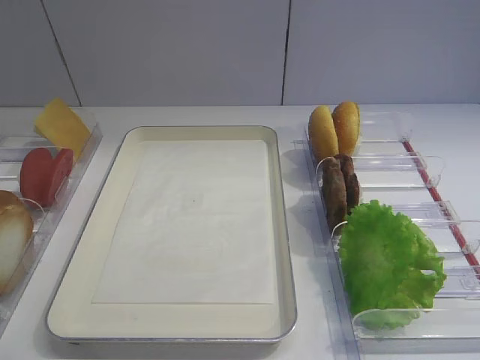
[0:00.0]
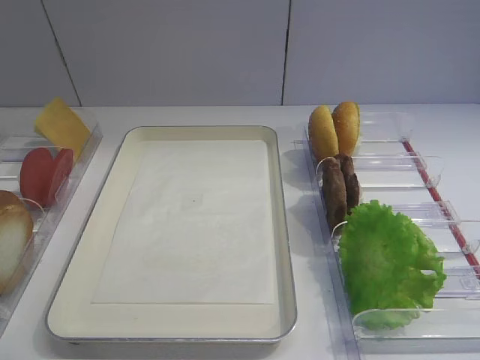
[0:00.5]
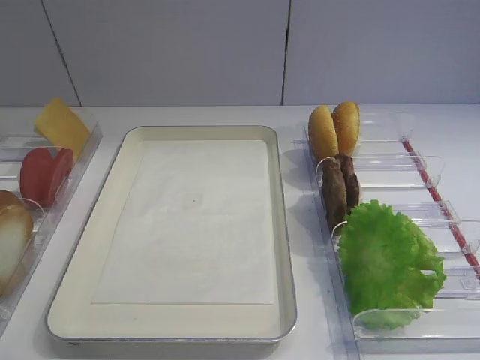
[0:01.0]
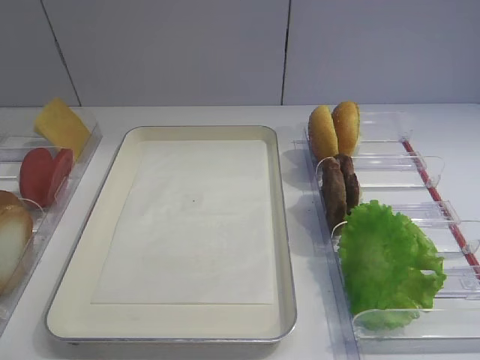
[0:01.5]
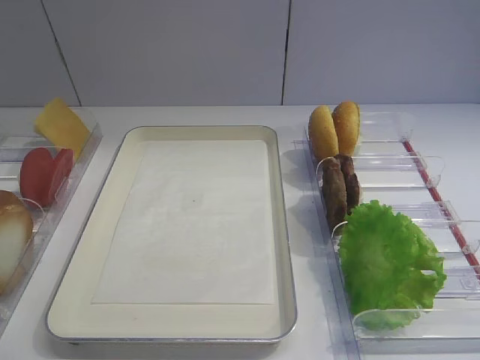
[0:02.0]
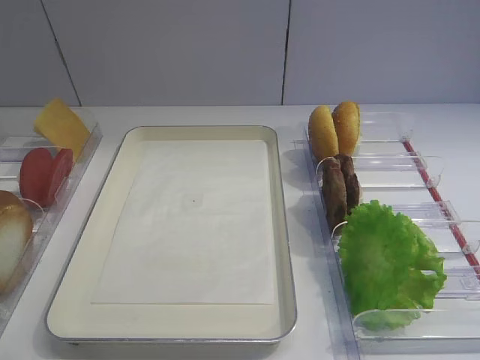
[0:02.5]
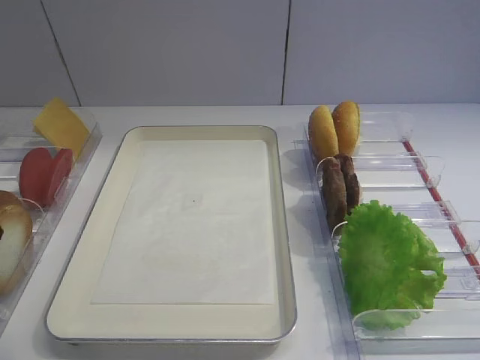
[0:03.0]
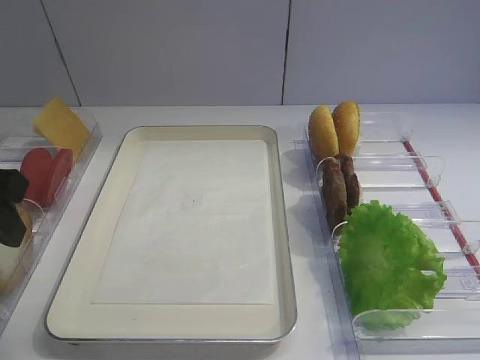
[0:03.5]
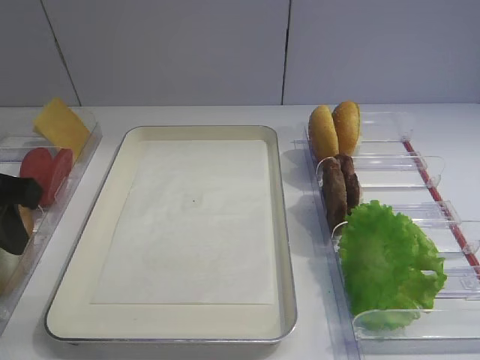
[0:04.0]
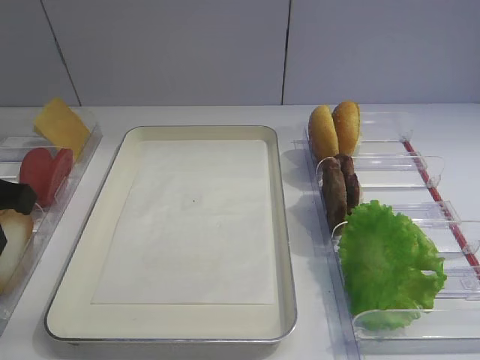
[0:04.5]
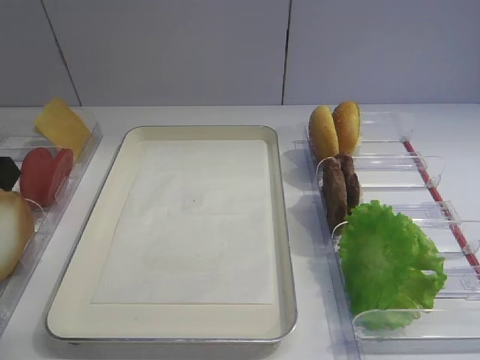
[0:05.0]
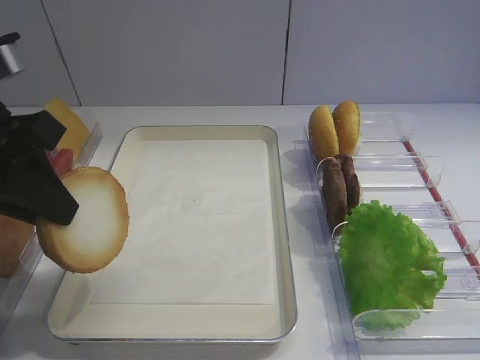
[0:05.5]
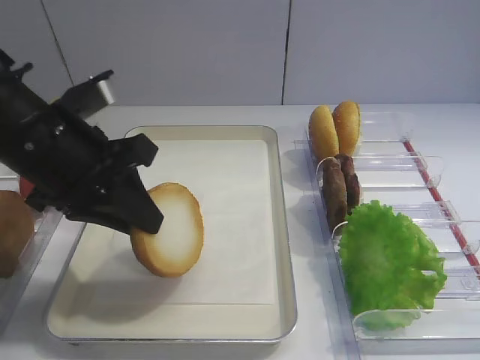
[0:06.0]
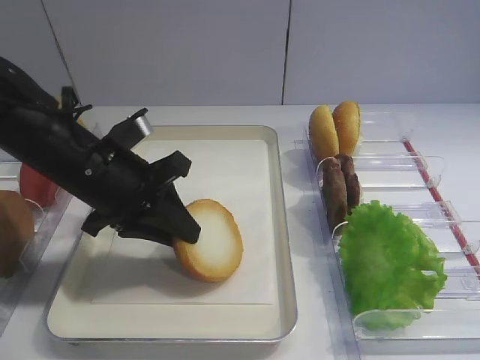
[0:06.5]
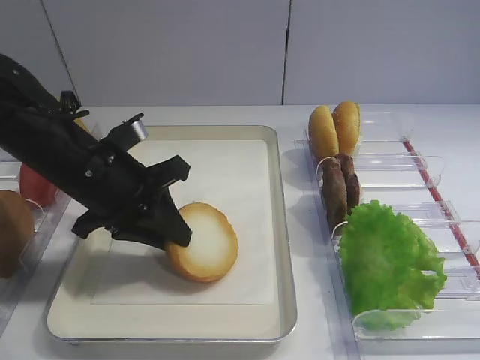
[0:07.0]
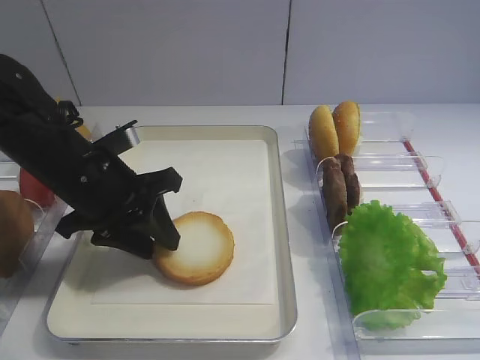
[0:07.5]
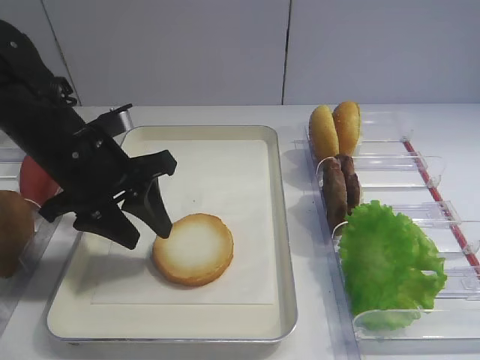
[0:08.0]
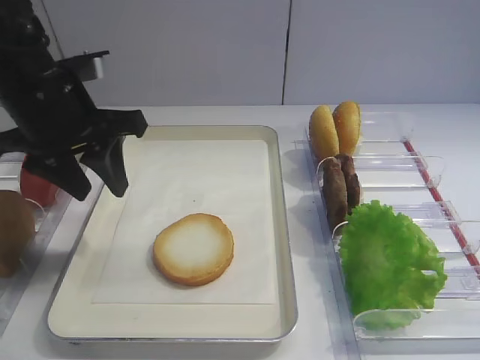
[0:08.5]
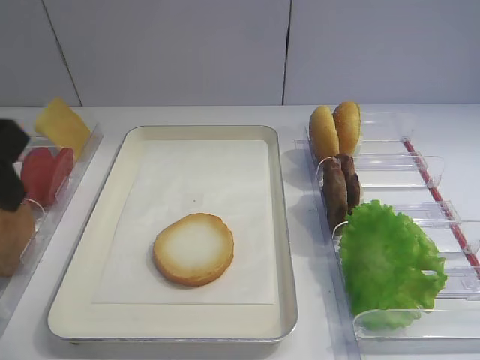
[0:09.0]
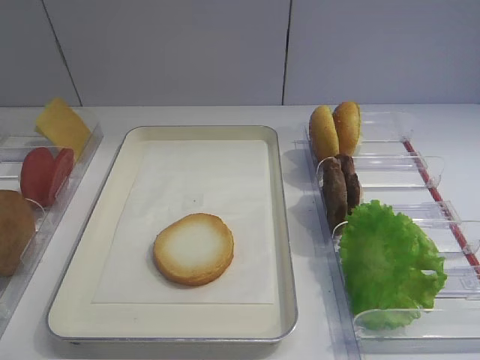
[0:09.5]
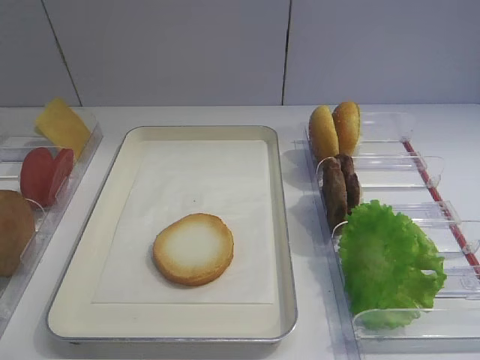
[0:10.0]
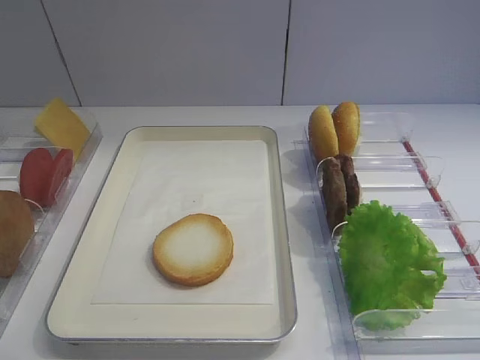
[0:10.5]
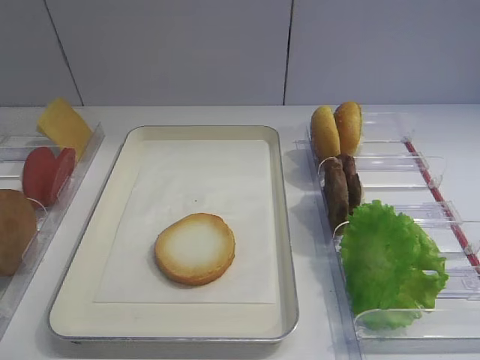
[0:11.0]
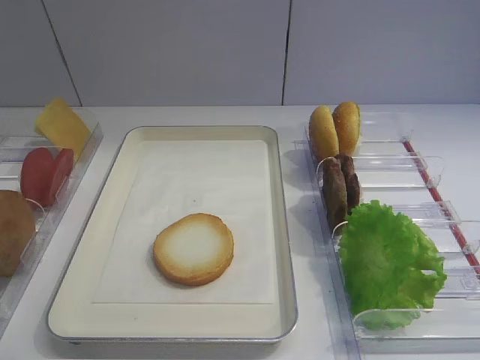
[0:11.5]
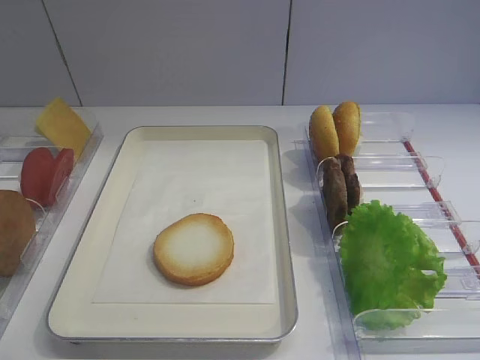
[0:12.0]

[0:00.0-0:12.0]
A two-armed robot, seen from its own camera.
Step, 0:00.0 to 0:05.0: Pick up the bread slice with the left gripper.
Step, 0:05.5 to 0:07.5: Place the bread slice on the tray with the left gripper.
0:02.0 to 0:04.0: The left gripper is displaced forward by about 15 cm, and closes its fingers.
0:04.0 to 0:06.0: The left gripper shifts about 10 cm to the right and forward.
0:06.0 to 0:08.0: The left gripper moves some 5 cm, and opens its fingers.
0:08.0 to 0:10.0: The left gripper moves backward, approximately 30 cm.

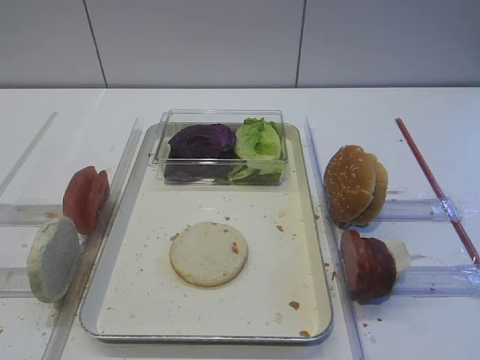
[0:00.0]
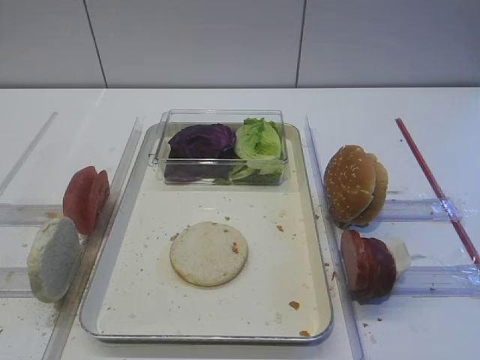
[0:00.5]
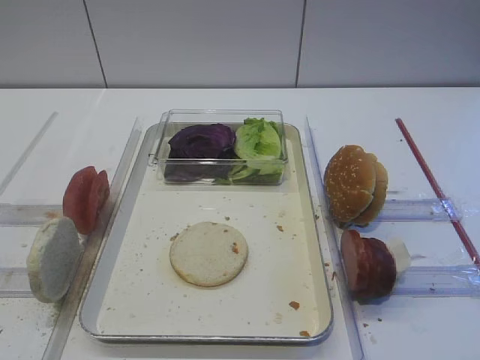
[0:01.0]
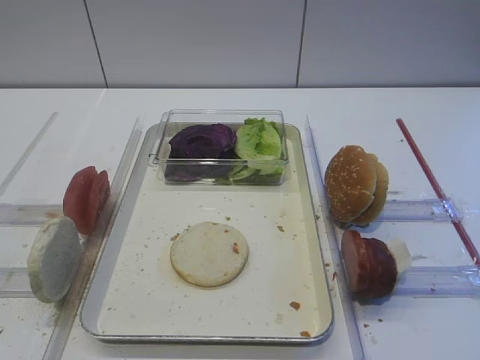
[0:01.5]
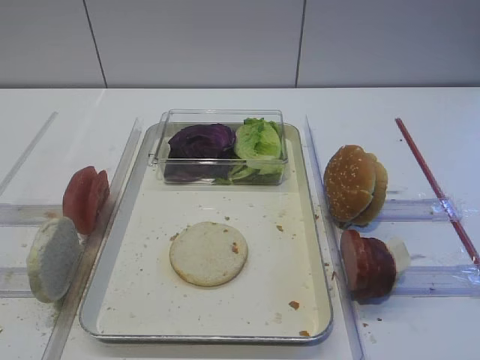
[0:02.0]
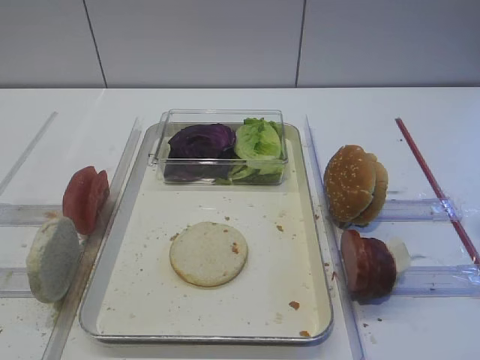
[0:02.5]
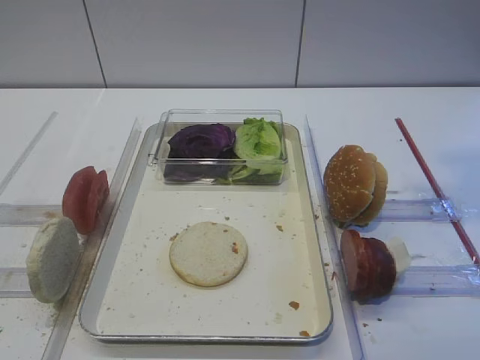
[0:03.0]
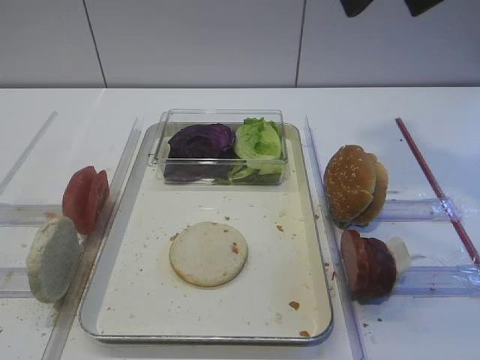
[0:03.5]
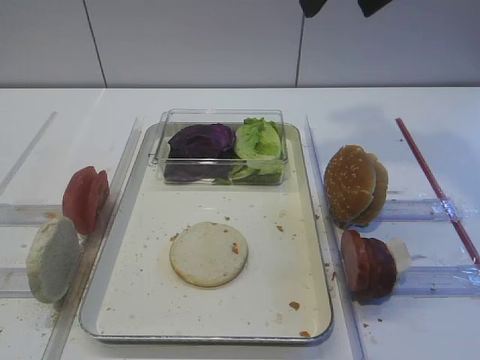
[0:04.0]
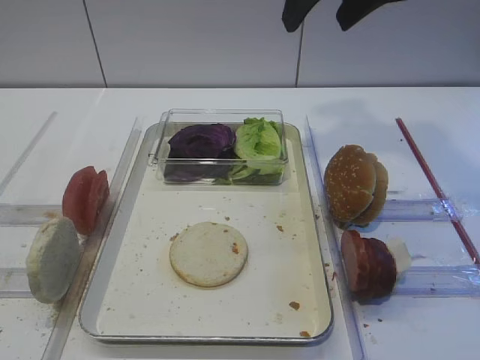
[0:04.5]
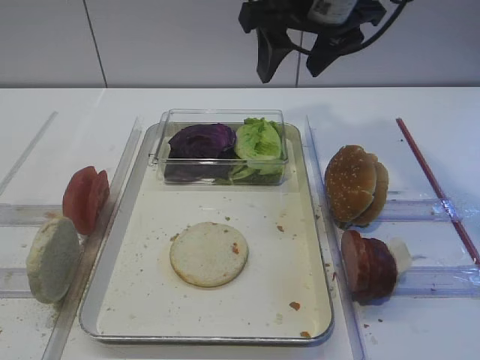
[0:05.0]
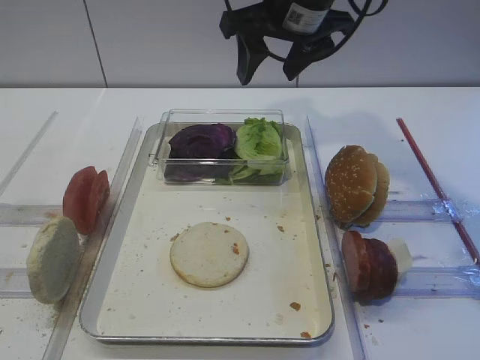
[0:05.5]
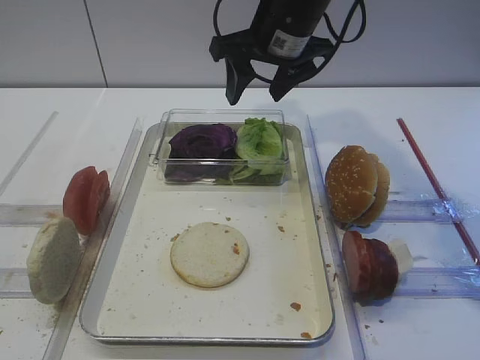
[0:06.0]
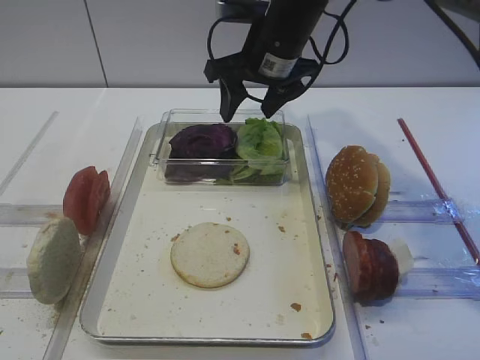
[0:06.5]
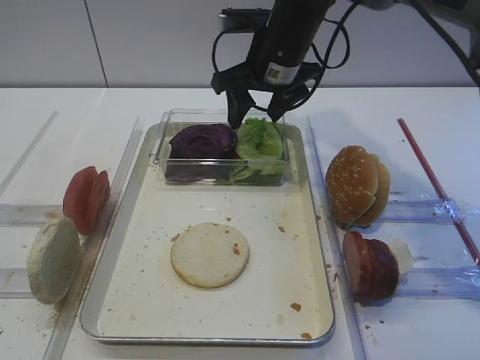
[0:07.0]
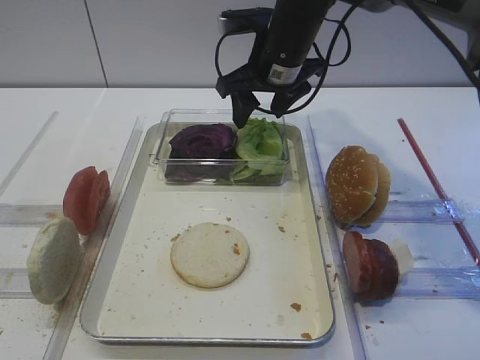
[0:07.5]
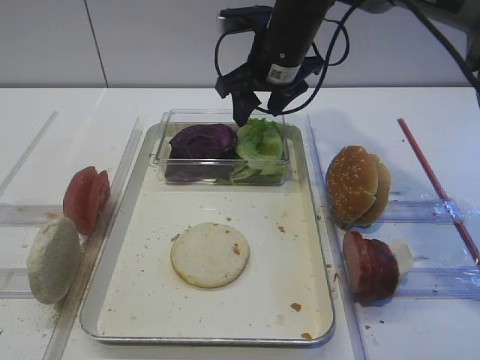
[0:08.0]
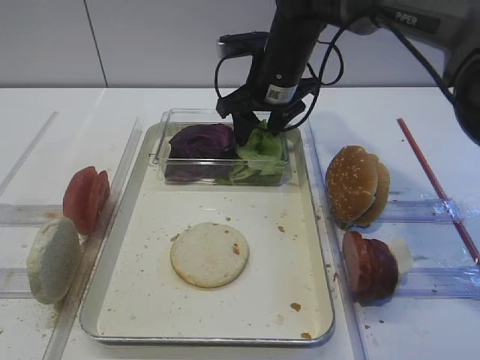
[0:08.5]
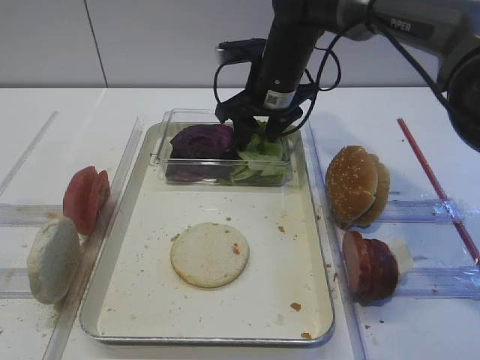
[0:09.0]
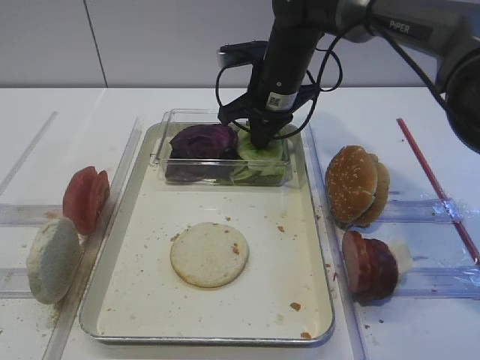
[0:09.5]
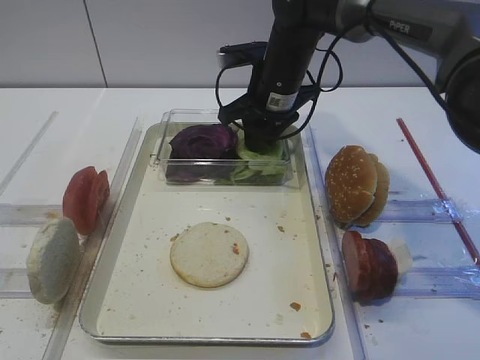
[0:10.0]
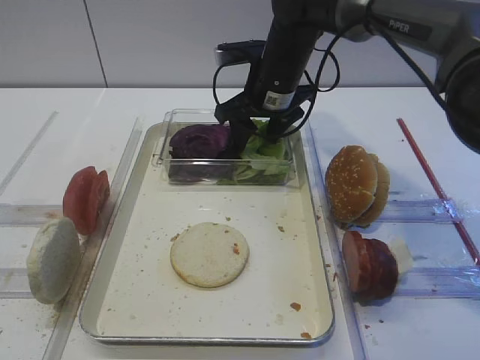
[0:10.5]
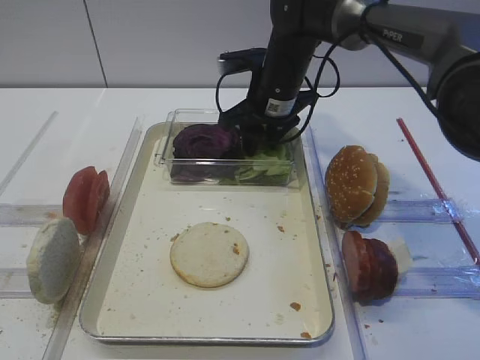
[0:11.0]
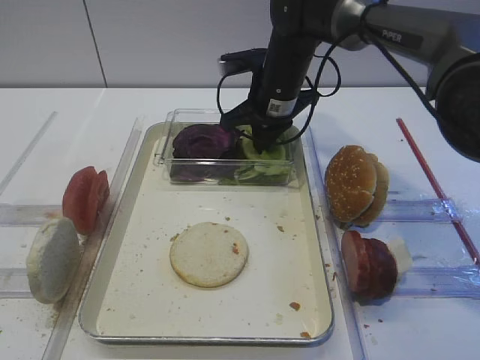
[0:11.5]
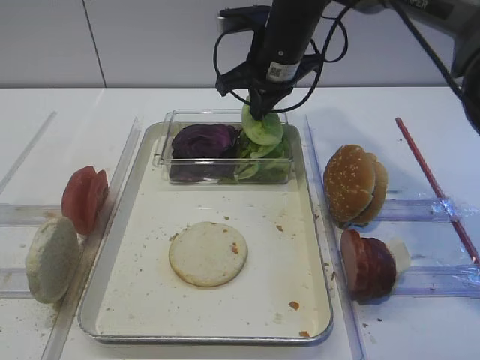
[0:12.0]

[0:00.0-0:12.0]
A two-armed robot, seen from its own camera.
0:02.0 to 0:04.0: The right gripper shifts roughly 30 cm forward and to the left.
0:04.0 to 0:06.0: The right gripper heads downward, forward and to the left, covering roughly 15 cm.
0:06.0 to 0:08.0: The right gripper changes place by about 5 cm.
0:08.0 to 0:10.0: The right gripper closes up.
0:10.0 to 0:12.0: The right gripper closes.

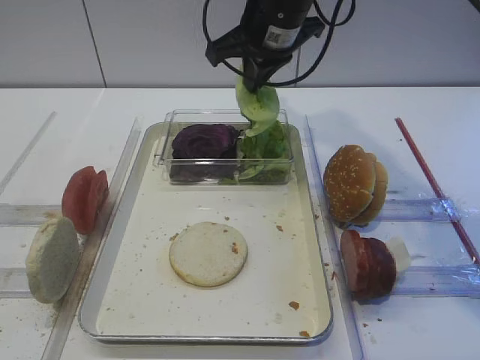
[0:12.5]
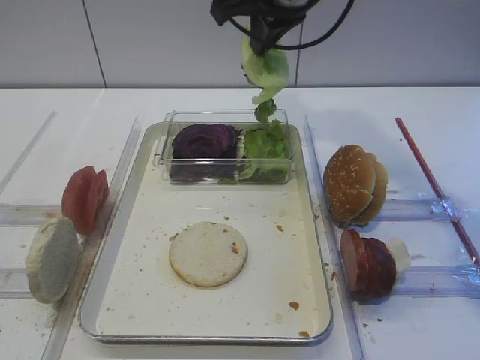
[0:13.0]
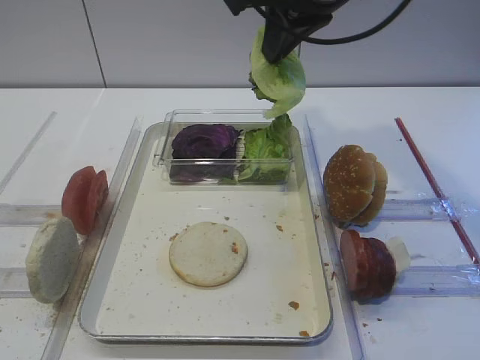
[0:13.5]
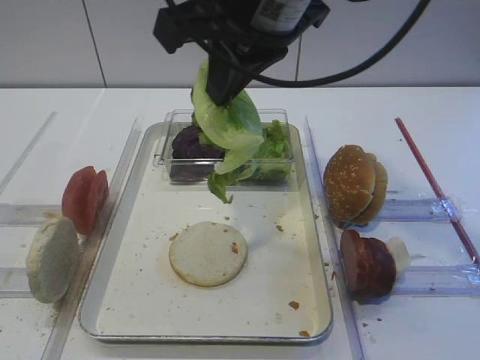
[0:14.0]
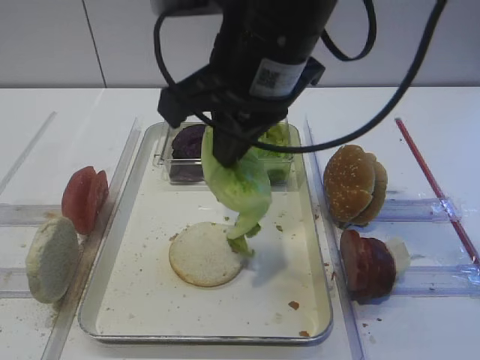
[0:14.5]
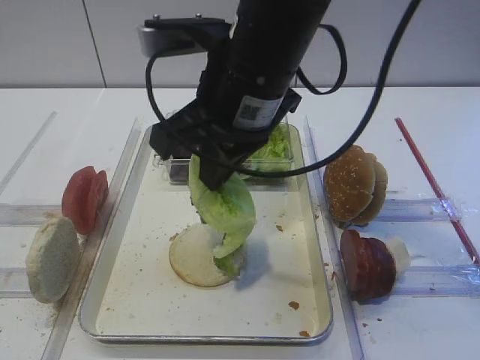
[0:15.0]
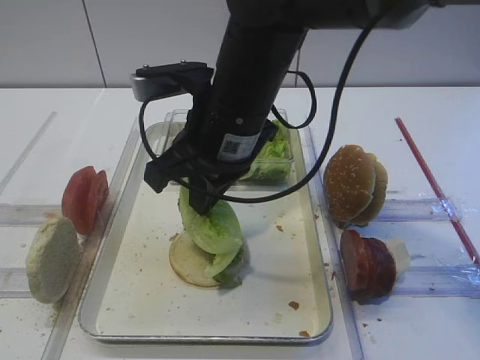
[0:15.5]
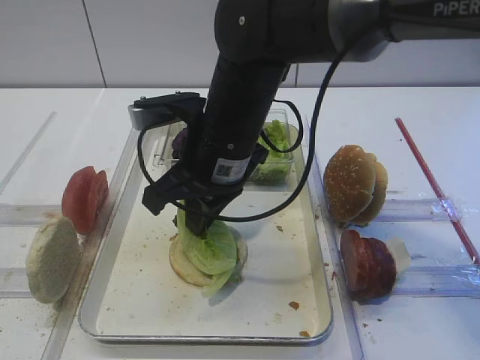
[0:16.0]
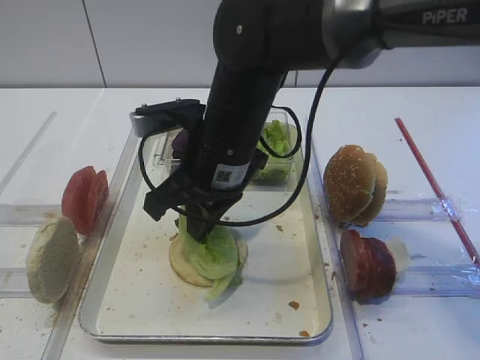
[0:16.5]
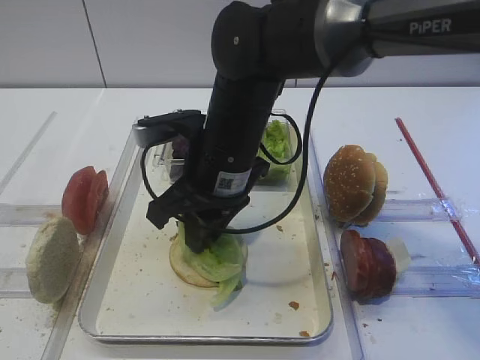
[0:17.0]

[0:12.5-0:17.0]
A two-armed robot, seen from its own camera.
0:12.5 to 0:14.5: The right gripper heads backward, covering about 15 cm.
0:14.5 to 0:17.0: The right gripper heads downward, covering approximately 15 cm.
